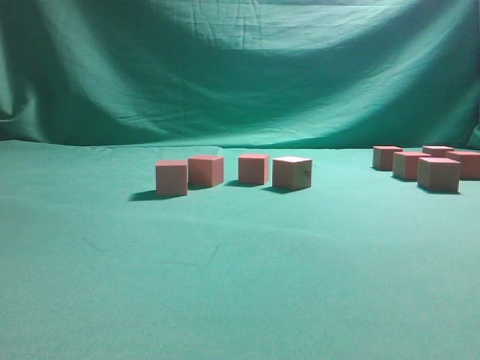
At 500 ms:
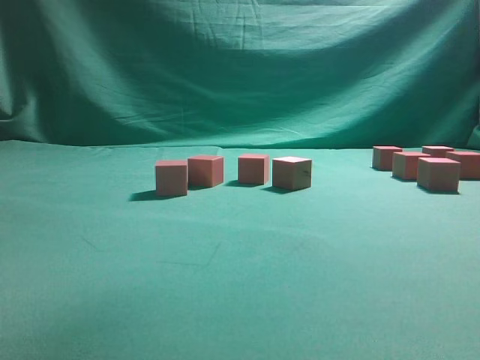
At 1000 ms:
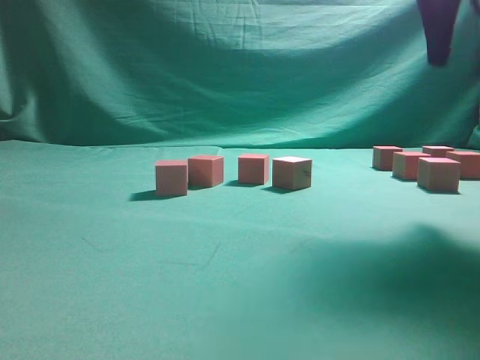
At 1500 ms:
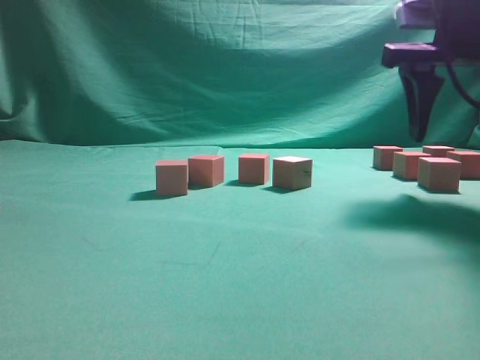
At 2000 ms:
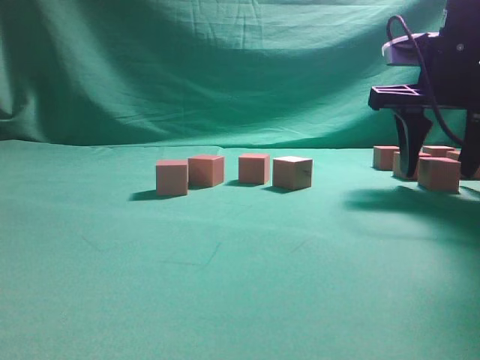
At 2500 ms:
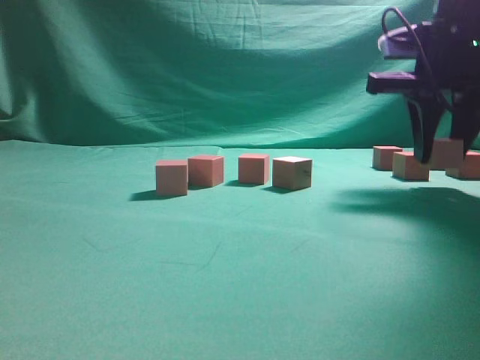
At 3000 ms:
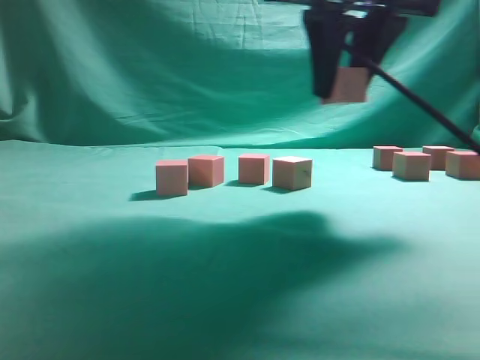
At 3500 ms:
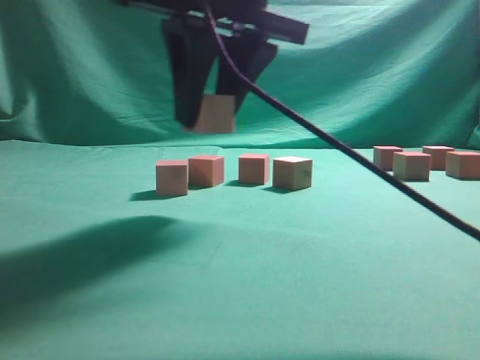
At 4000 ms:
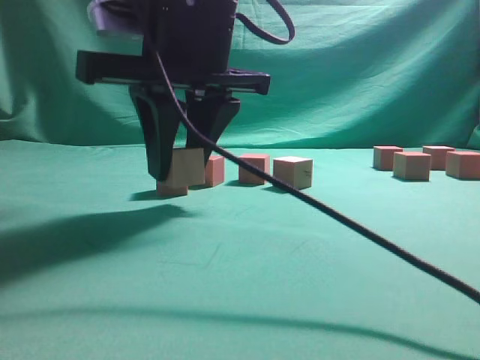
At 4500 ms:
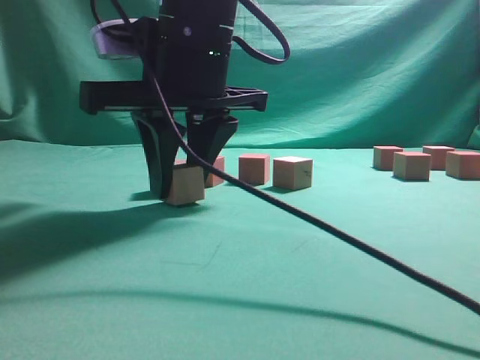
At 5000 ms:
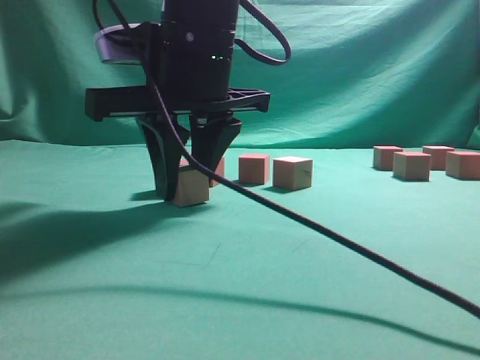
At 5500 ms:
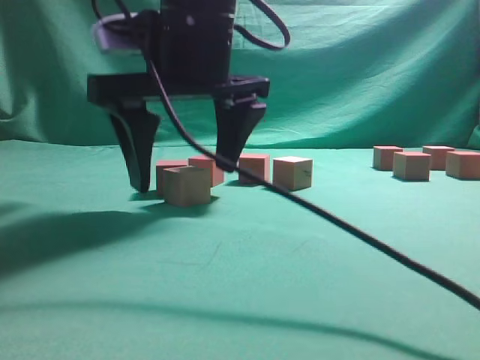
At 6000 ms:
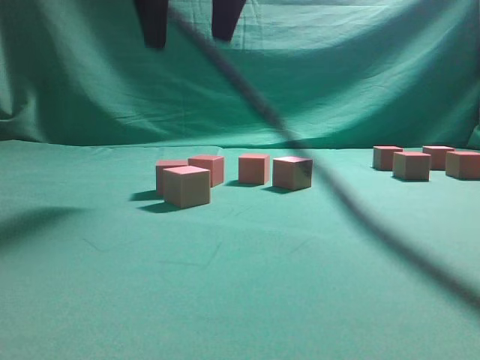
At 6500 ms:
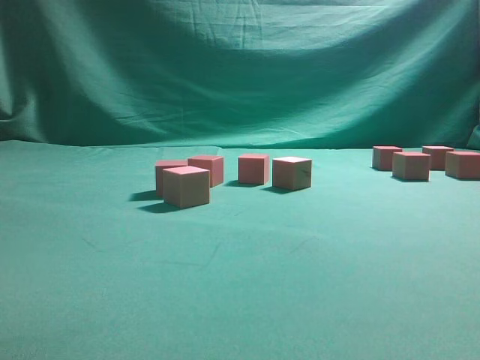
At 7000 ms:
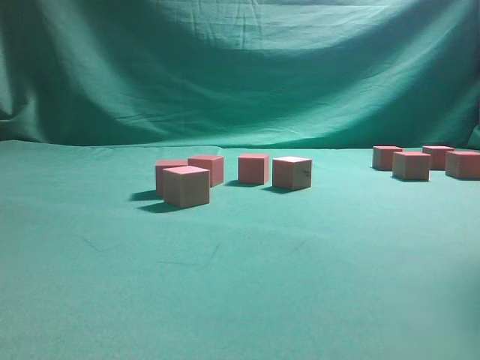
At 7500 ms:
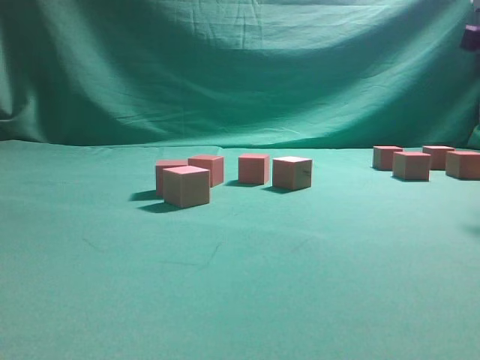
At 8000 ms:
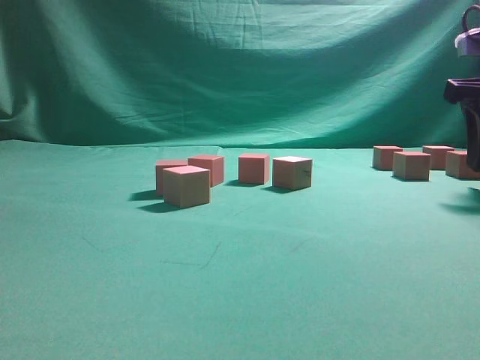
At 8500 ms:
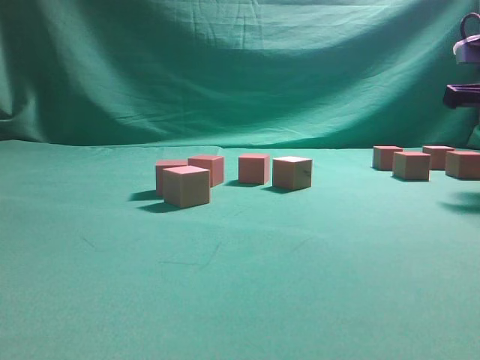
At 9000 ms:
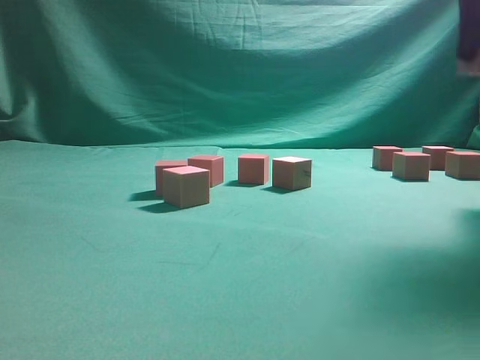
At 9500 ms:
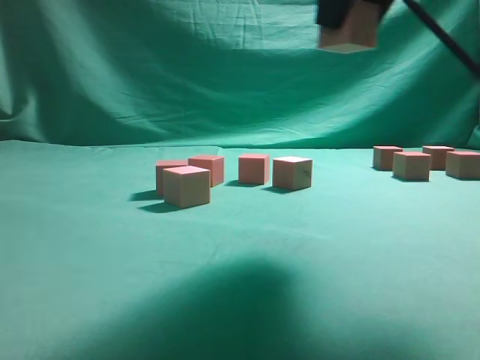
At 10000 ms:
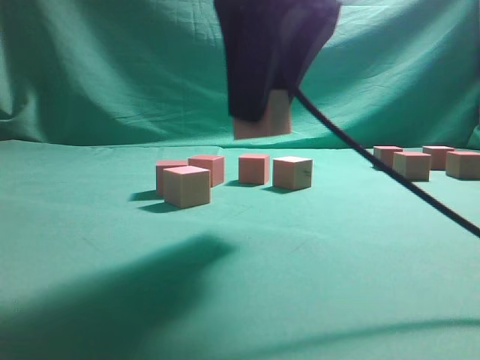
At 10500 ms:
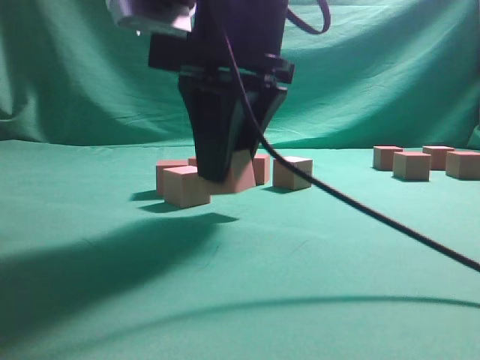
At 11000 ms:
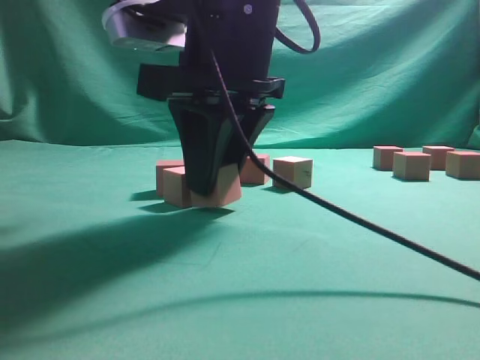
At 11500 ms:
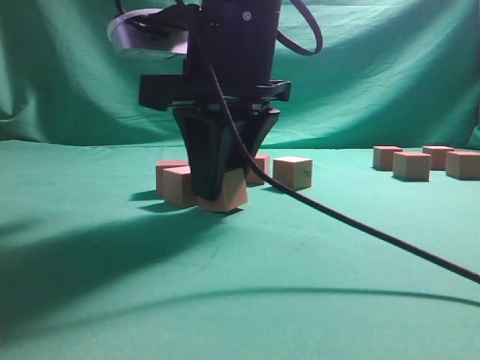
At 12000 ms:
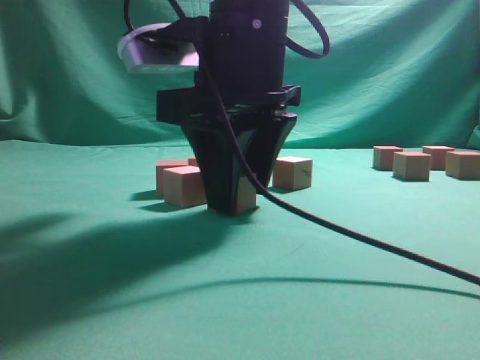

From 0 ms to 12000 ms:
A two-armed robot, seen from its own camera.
Task of the whole recording: pick up the multiple cubes in two columns one by one and place them in another position on the table.
Step, from 0 ms to 2500 ms: Pick up the block on the table.
Step, from 3000 ms to 5500 ms: Place the block at the correct position to assemble the letter S.
Step, from 6000 ms to 8500 ms: Pick up the block on the table.
From 0 ms to 2000 ms: The right gripper is displaced to the right and downward by roughly 30 cm.
From 2000 ms to 4000 ms: The right gripper goes approximately 25 cm to the left.
From 4000 ms to 6000 ms: The right gripper travels upward by approximately 10 cm, and opens up.
From 6000 ms to 8000 ms: The right gripper heads to the right and downward, covering about 35 cm.
From 8000 ms to 10000 ms: The right gripper shifts about 25 cm to the left and backward, and closes up.
From 10000 ms to 12000 ms: The right gripper is displaced downward by some 5 cm.

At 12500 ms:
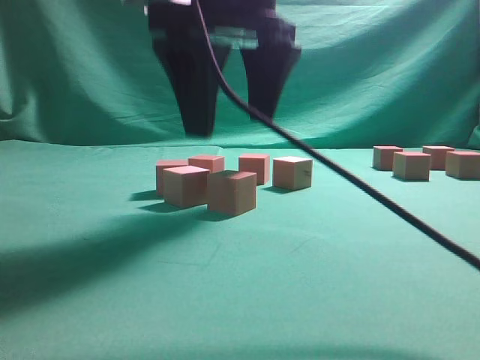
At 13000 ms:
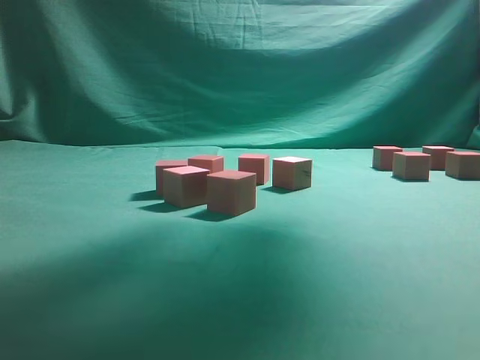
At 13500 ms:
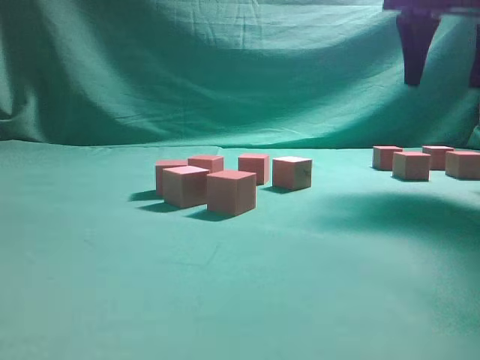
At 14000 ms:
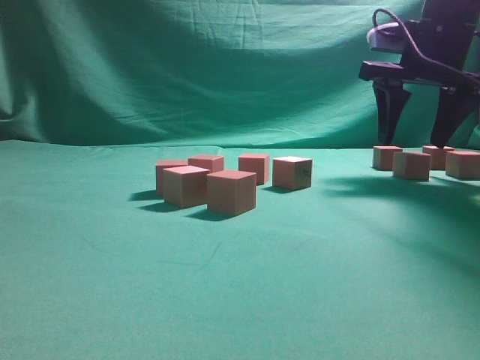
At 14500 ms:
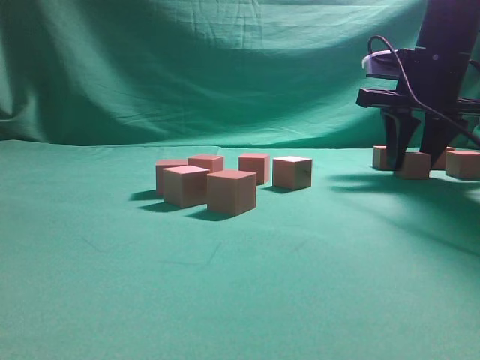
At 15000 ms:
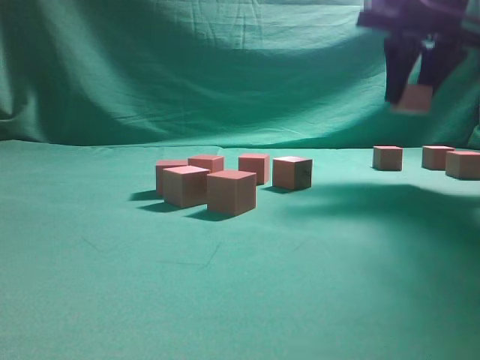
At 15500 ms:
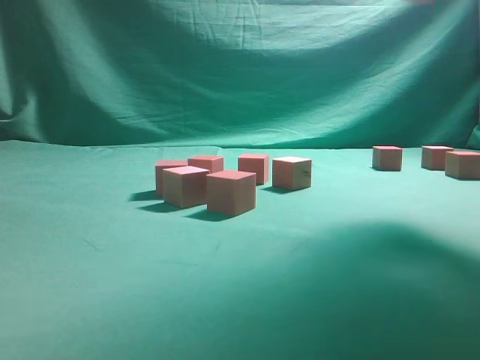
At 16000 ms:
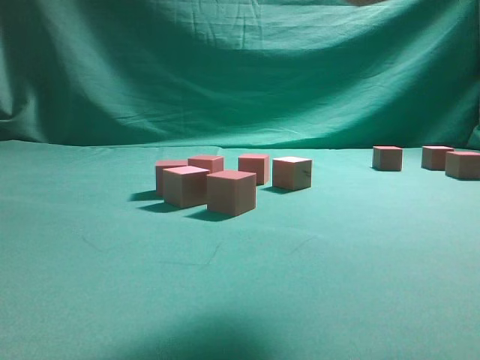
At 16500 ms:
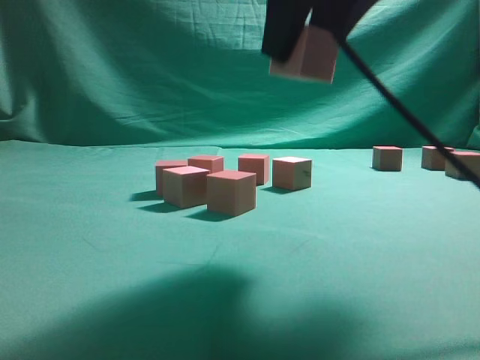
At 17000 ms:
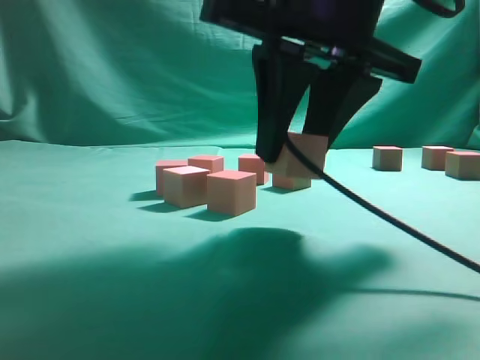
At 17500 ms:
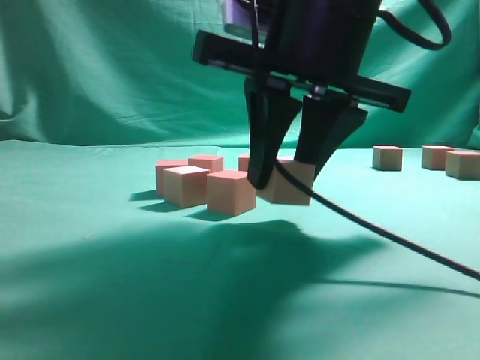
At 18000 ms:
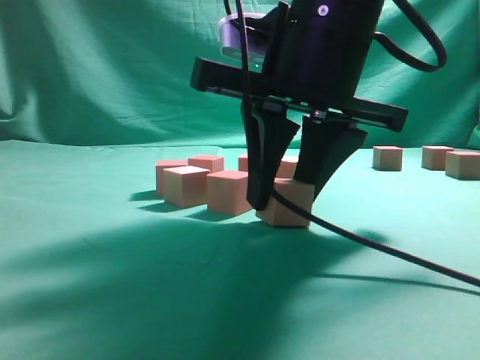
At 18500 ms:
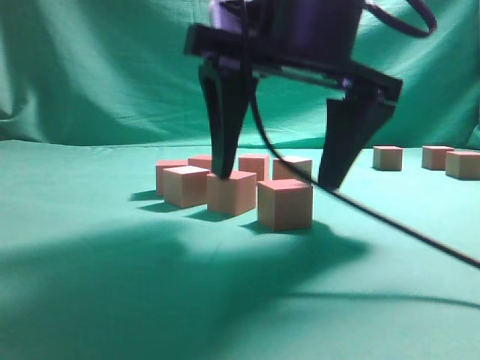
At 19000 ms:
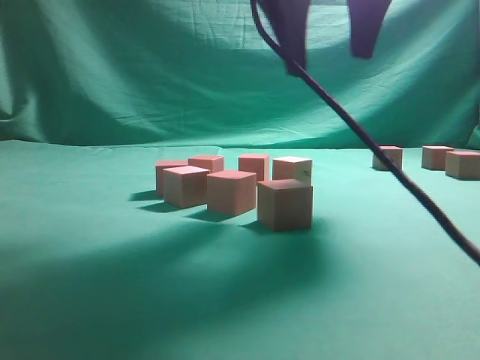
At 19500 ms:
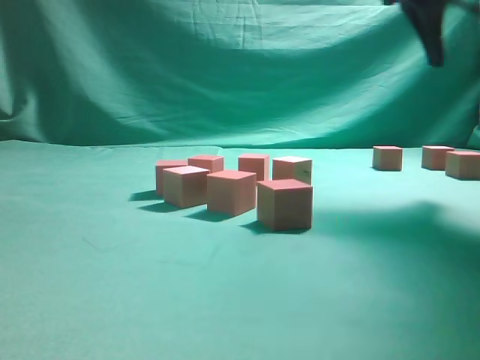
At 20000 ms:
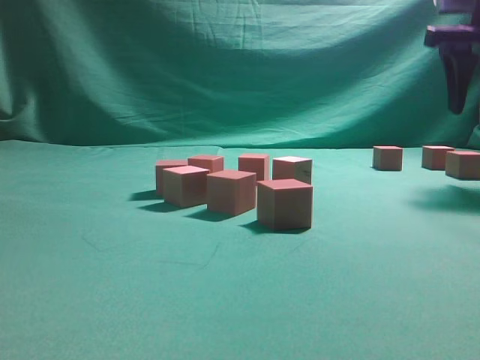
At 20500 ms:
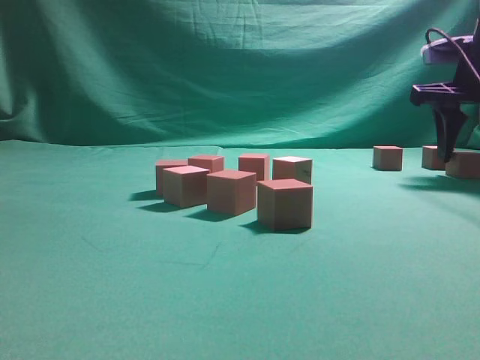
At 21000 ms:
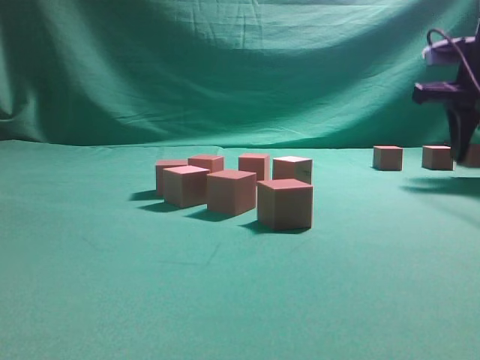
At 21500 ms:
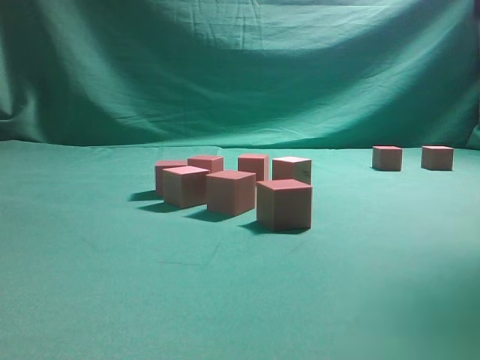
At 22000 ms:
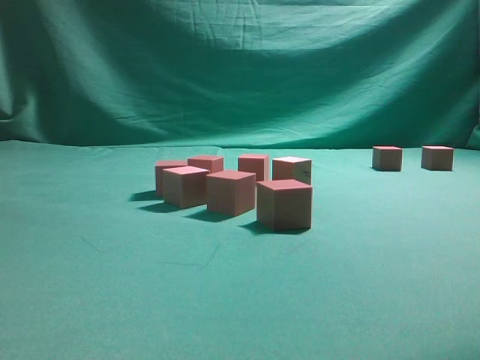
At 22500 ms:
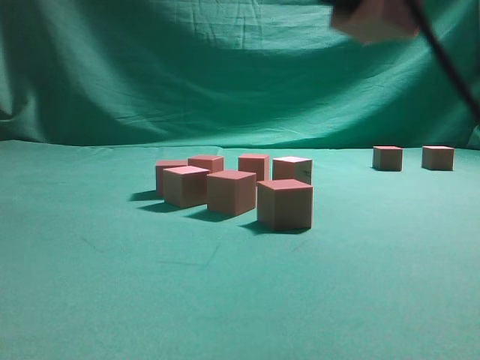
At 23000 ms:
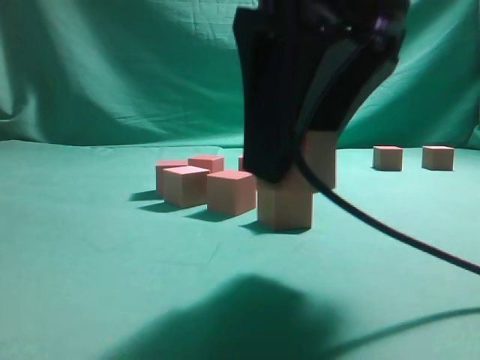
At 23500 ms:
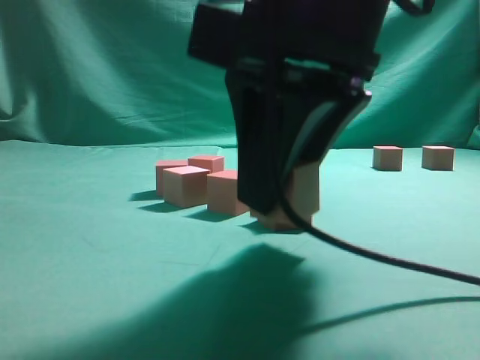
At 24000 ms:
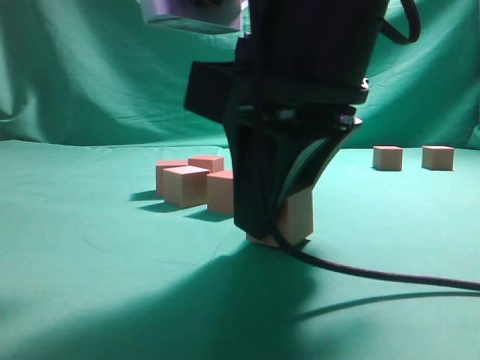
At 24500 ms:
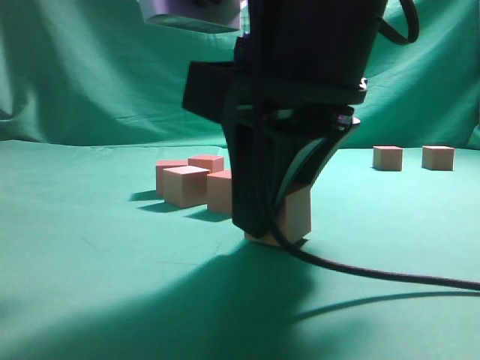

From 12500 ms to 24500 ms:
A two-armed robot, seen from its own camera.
Task of the whole recording: pick up the multiple cubes in two columns one by one and place them in another position on the table.
Step, from 13000 ms to 14500 ms: Pick up the block on the table.
Step, from 15000 ms to 18500 ms: Place the block at the correct position to assemble the letter S.
Step, from 19000 ms to 21000 ms: Pick up the block on the table.
From 12500 ms to 14500 ms: The right gripper moves to the right and forward, about 25 cm, and closes.
From 14500 ms to 16500 ms: The right gripper shifts roughly 25 cm backward, to the left and upward.
From 16500 ms to 18500 ms: The right gripper travels downward by some 5 cm, and opens its fingers.
From 18500 ms to 20500 ms: The right gripper is displaced to the right and forward by roughly 30 cm.
From 20500 ms to 22500 ms: The right gripper moves backward and to the left, some 30 cm.
From 22500 ms to 24500 ms: The right gripper is displaced downward and to the left by approximately 10 cm.

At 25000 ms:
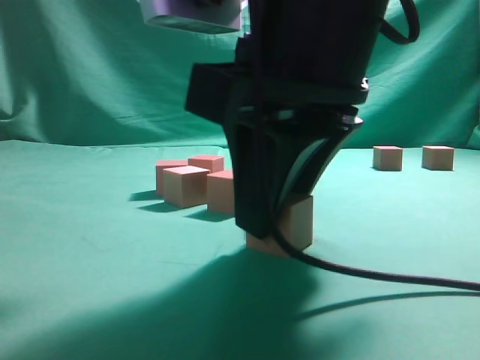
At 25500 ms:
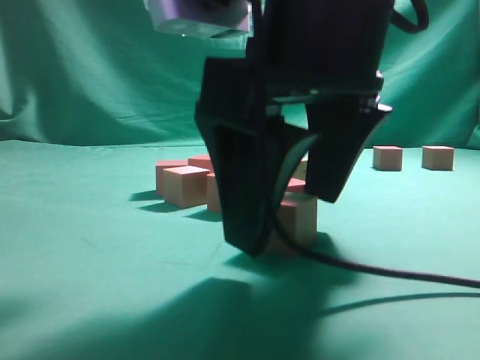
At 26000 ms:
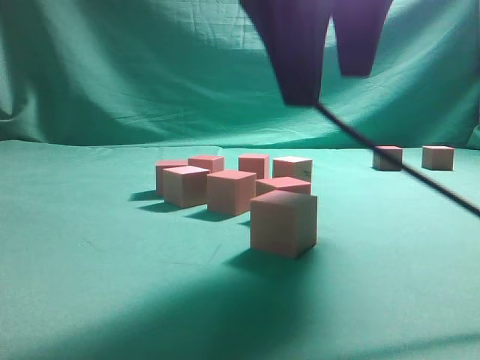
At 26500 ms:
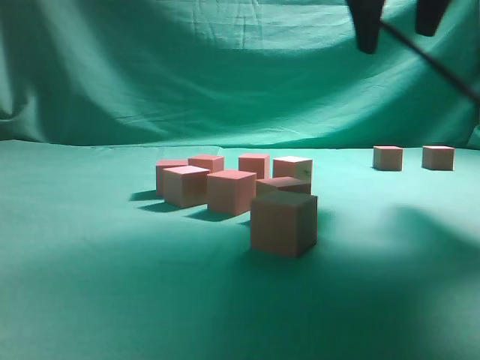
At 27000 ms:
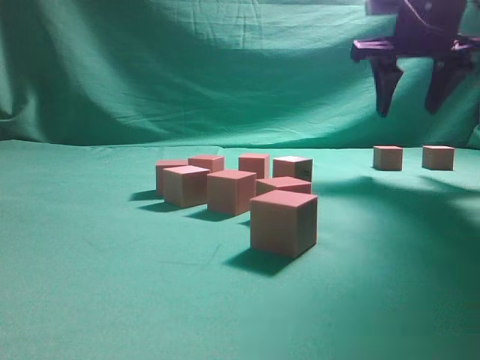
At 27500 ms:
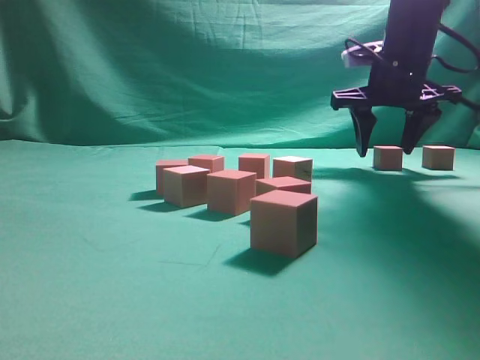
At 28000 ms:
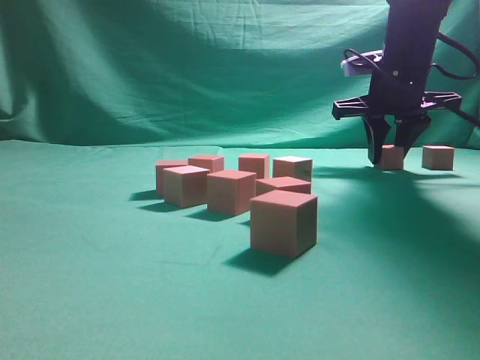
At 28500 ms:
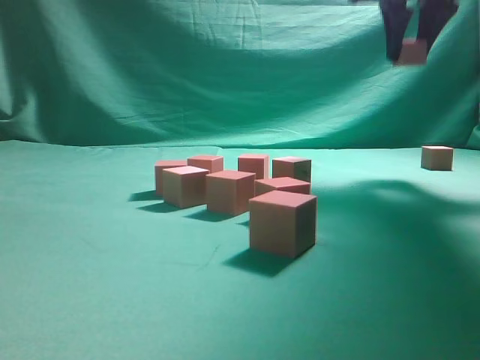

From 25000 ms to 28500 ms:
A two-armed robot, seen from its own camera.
Task of the whole recording: pick up the multiple cubes in two columns one by one and place them in another position on the table.
Step, from 26000 ms to 28000 ms: Pick up the block on the table.
From 25000 ms to 27000 ms: The right gripper shifts about 30 cm forward and to the right.
From 27000 ms to 28500 ms: The right gripper shifts roughly 10 cm upward.
